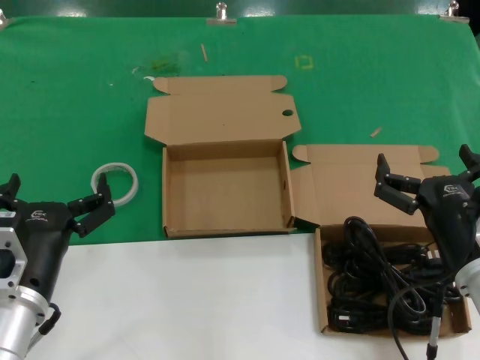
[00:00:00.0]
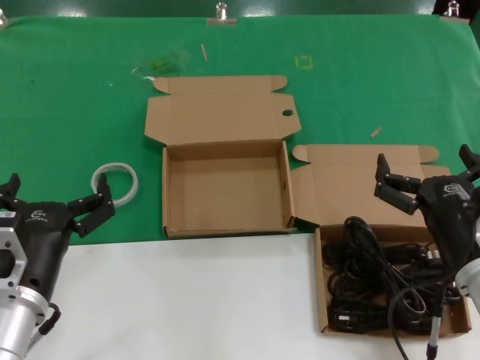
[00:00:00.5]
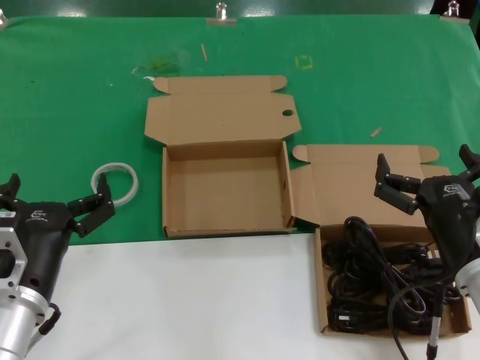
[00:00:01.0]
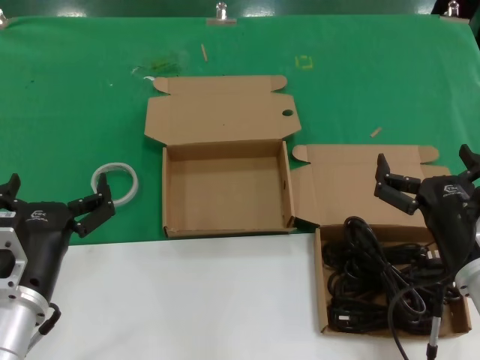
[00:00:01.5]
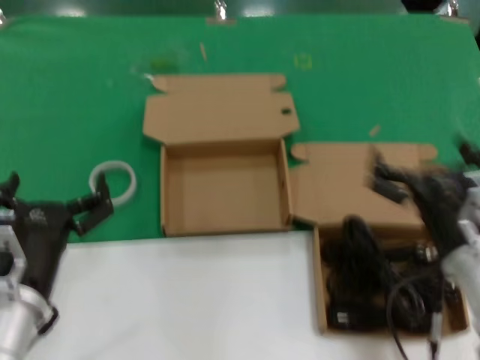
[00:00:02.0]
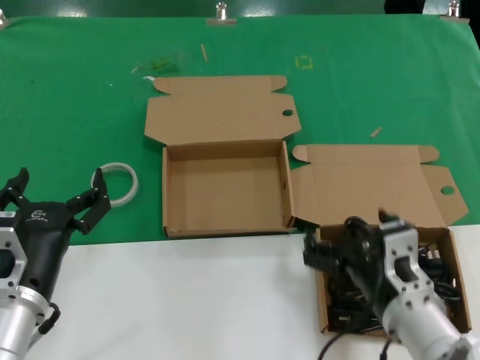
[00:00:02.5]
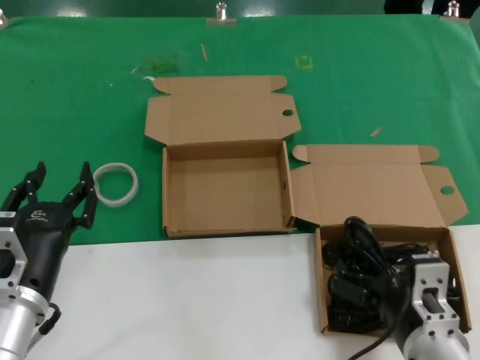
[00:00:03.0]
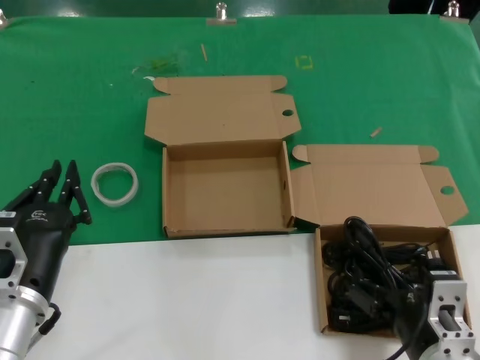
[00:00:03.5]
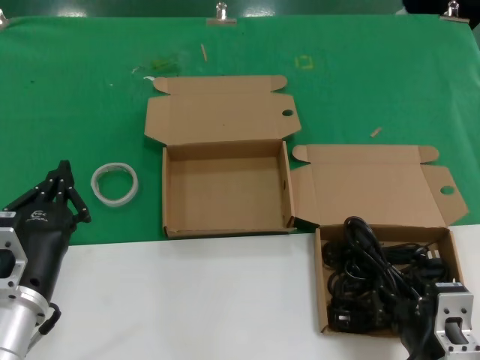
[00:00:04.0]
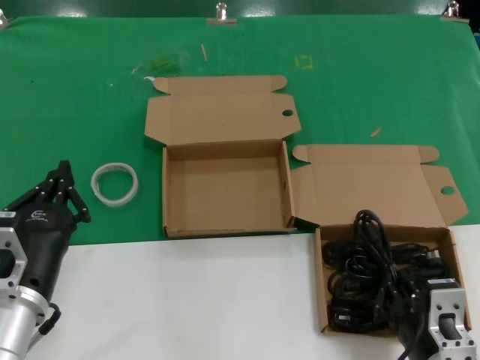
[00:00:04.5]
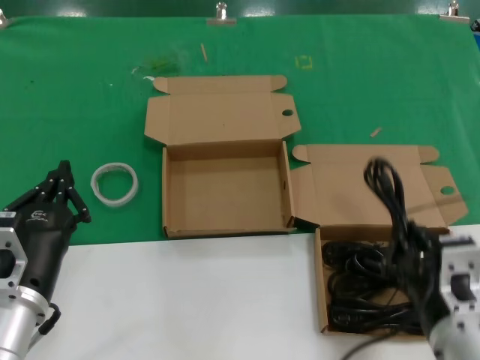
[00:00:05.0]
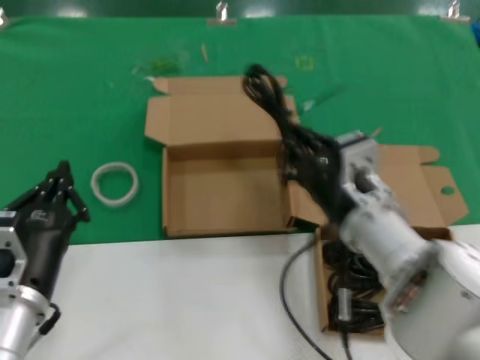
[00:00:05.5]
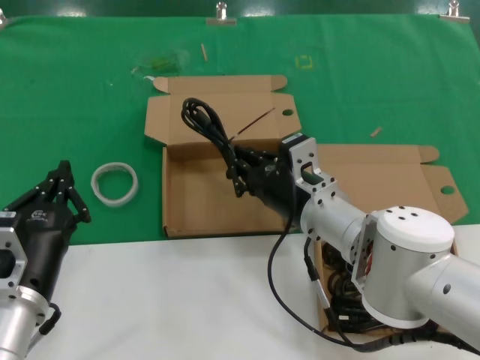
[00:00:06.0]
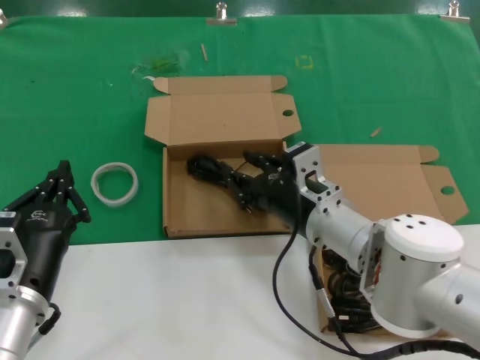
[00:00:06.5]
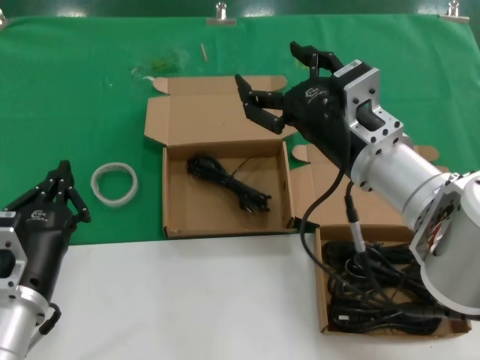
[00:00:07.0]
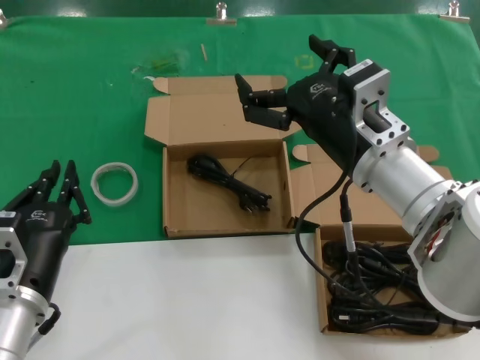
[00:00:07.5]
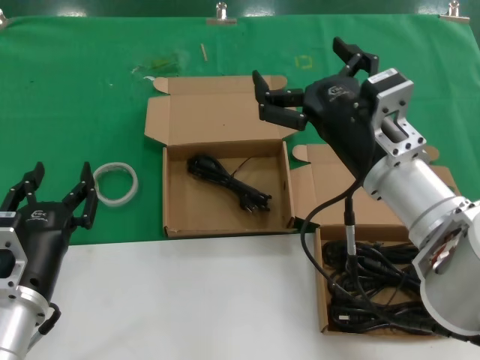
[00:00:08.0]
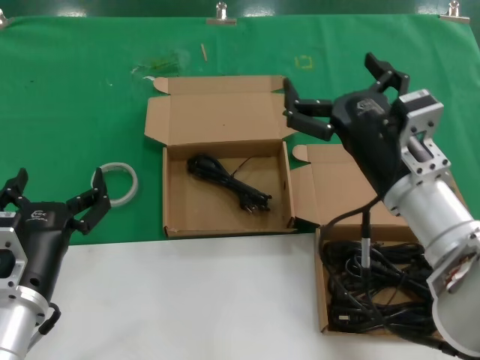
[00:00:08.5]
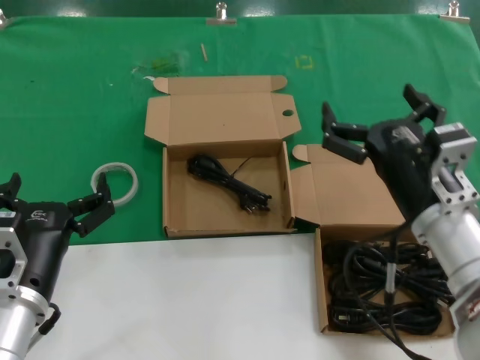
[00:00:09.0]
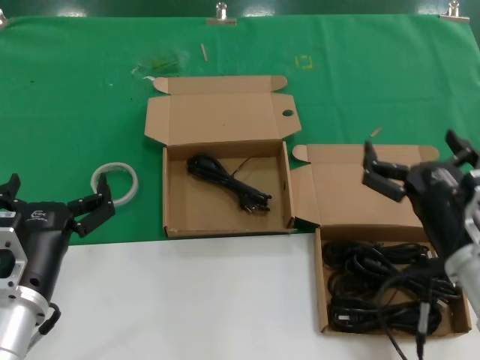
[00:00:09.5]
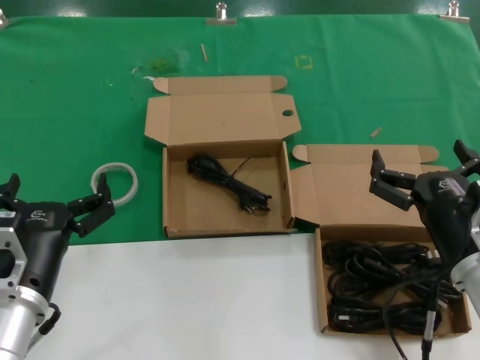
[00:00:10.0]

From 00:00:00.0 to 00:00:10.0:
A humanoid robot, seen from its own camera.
Task of the whole recording: Pick up the power cord from the box containing it and place it in another box.
Step, from 00:00:00.0 to 00:00:04.5: Grasp the data cable.
Step, from 00:00:05.0 to 00:00:06.5: Place the data cable in the another box.
From 00:00:00.0 to 00:00:02.0: The hands move only a little.
From 00:00:02.0 to 00:00:04.0: The right hand is displaced backward and downward by approximately 10 cm.
From 00:00:04.0 to 00:00:06.0: The right hand goes about 20 cm forward and to the left.
From 00:00:06.0 to 00:00:08.0: The right hand heads upward, covering approximately 10 cm.
From 00:00:08.0 to 00:00:10.0: The right hand goes approximately 15 cm downward, to the right and backward.
